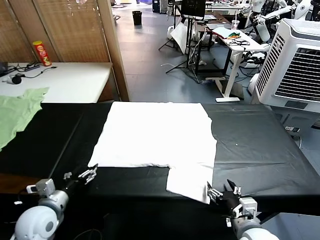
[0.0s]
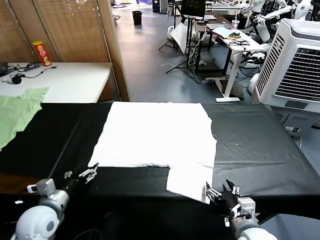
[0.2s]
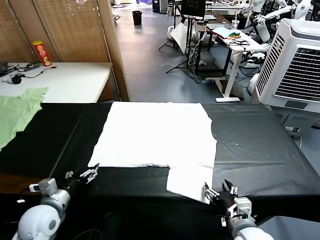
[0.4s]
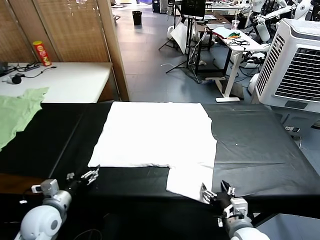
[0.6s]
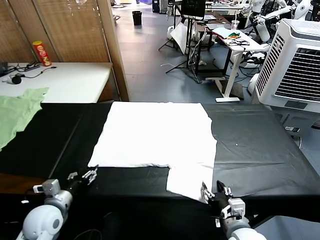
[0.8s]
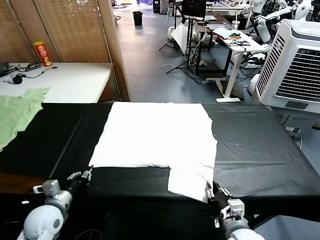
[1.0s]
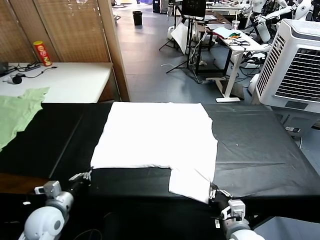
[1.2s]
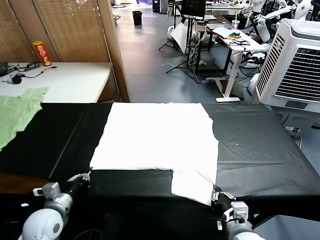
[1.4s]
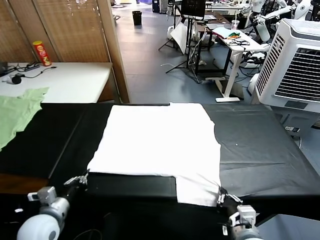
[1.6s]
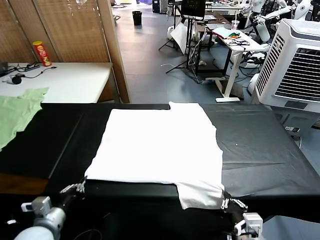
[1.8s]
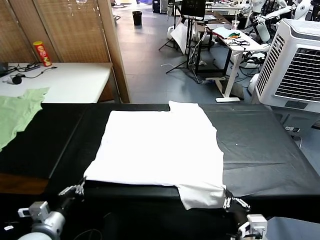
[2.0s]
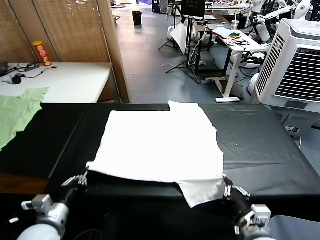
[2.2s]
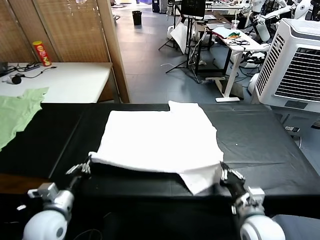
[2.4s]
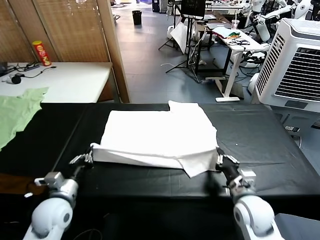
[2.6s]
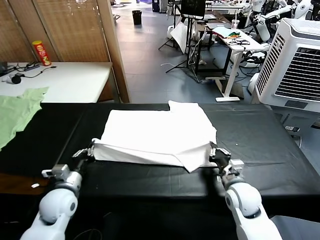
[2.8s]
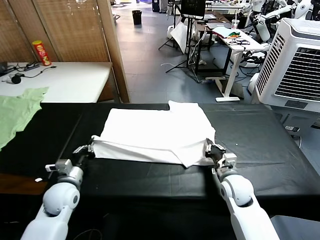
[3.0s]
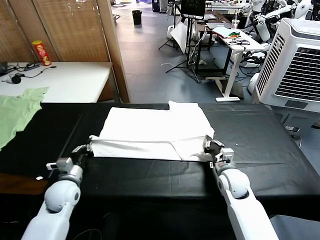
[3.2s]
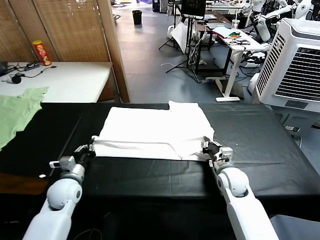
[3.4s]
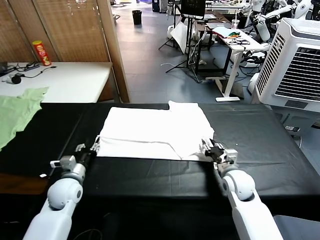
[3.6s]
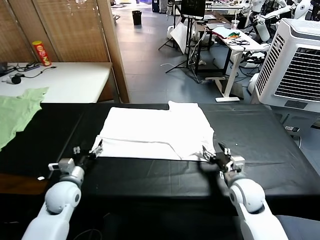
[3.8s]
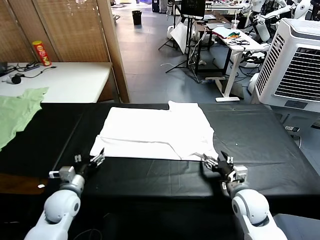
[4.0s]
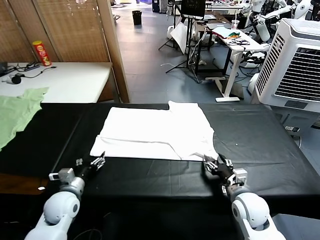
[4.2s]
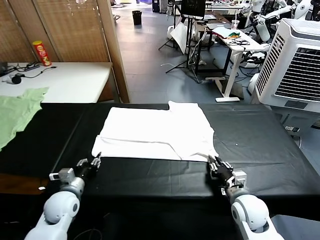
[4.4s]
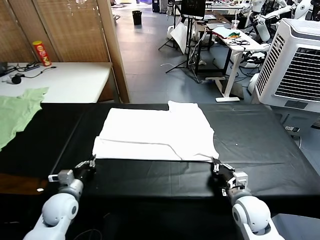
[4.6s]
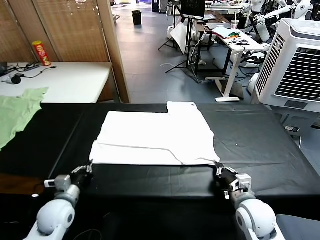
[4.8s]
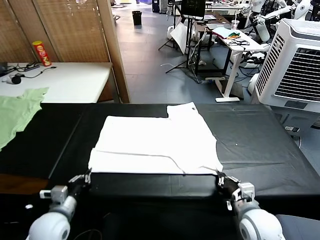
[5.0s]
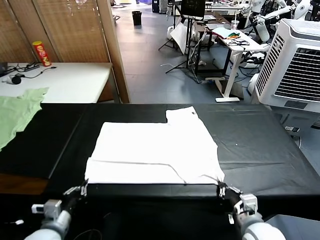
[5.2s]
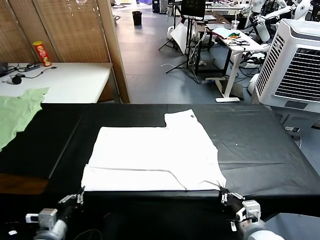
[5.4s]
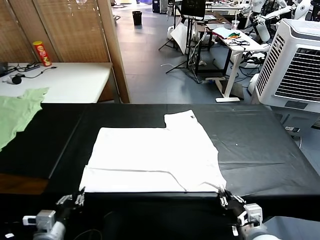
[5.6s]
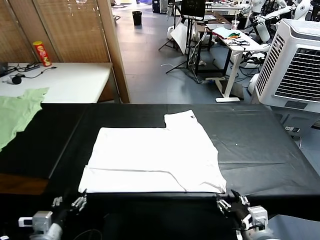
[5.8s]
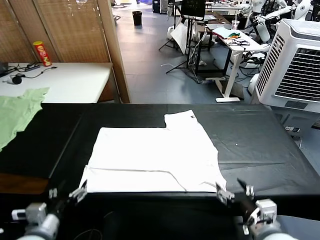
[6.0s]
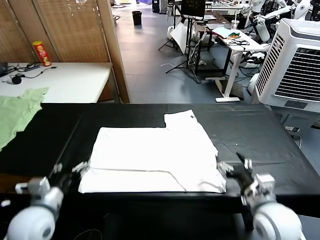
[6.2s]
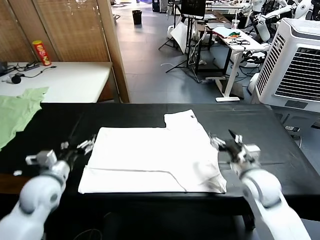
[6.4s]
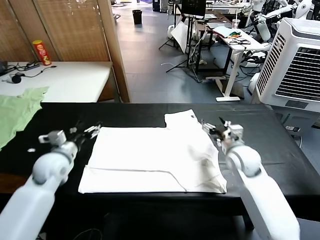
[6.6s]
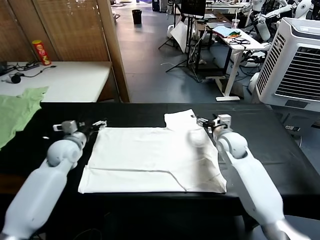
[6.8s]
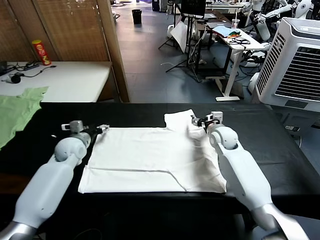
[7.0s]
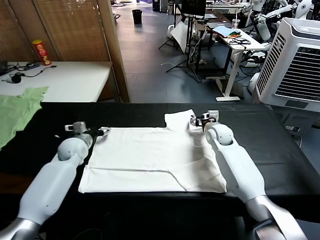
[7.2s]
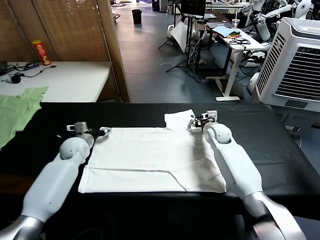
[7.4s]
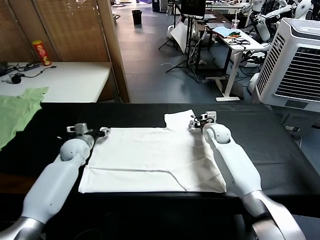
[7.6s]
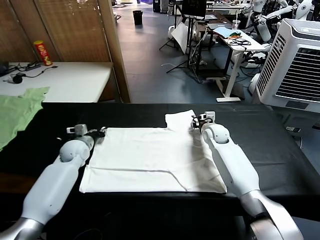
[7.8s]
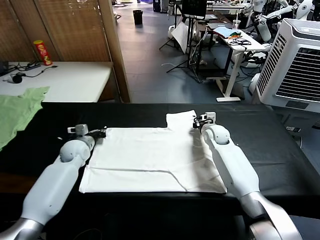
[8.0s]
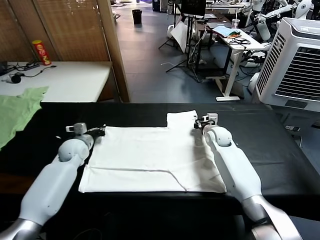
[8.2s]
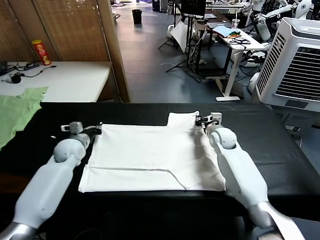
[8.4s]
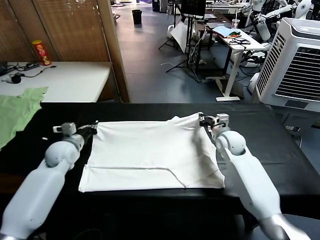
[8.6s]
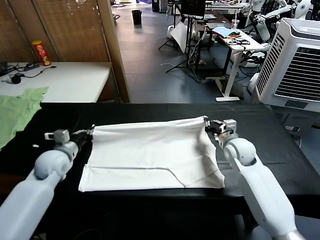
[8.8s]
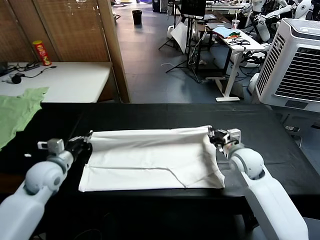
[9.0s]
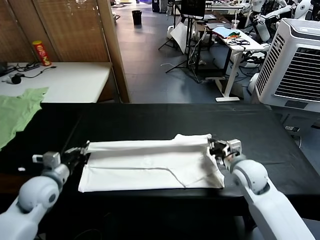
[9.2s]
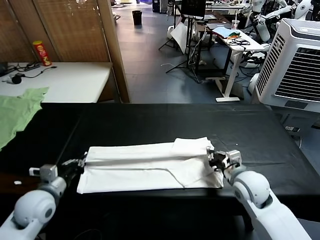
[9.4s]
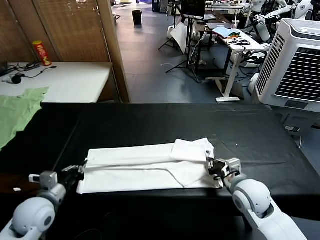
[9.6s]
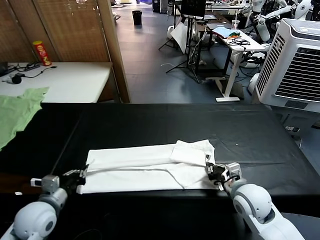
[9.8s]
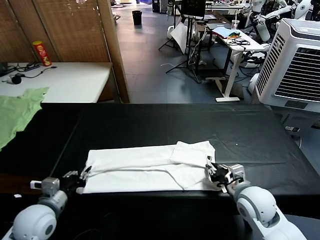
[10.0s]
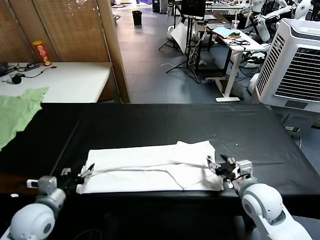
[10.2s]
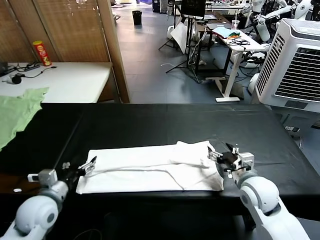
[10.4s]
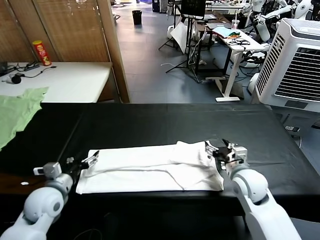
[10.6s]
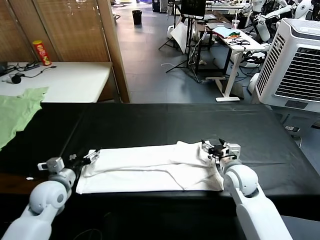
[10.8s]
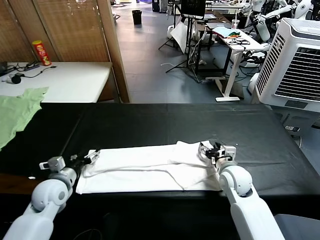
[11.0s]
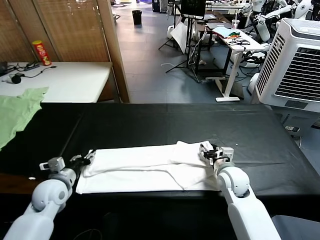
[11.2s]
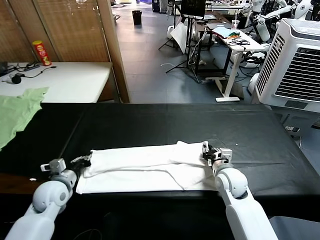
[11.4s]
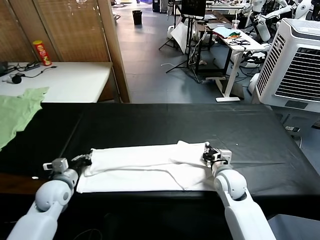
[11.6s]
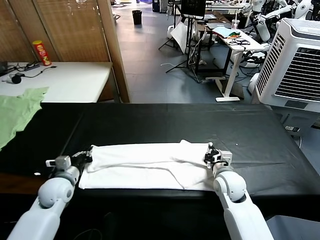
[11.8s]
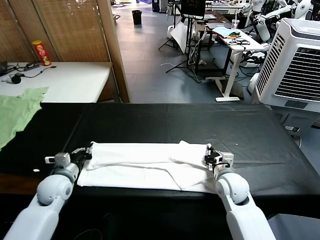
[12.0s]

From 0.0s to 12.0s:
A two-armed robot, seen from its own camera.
Task of the whole recording: fold and organize the clothes.
Step, from 0.0s to 1.4s: use both grippers simultaneously to clamp the lower edge of the clothing fabric.
Step, from 1.6s to 3.6s: use both grippers to drag the lower edge of the fabric forward and fold it over the upper edge.
Step, from 4.0s to 5.8s: Drag the clothes downward with both gripper.
Step, from 6.0s to 7.8s: use both grippers simultaneously to clamp the upper edge of the clothing fabric.
Step, from 8.0s to 10.2s: use both grippers to drag the upper edge of the fabric backward and fold it over the lower edge.
From 1.6s to 3.0s: The right gripper moves forward, approximately 25 cm. Meanwhile the left gripper goes about 10 cm forward.
From 3.0s to 4.4s: The right gripper travels backward by some 10 cm, and opens and closes again; the left gripper opens, then closes again.
From 4.4s to 6.0s: The left gripper shifts roughly 15 cm backward and upward, and opens up, while the right gripper heads upward and backward, covering about 15 cm, and opens up.
From 6.0s to 7.6s: The grippers both shift forward by about 35 cm. The right gripper closes.
From 7.6s to 9.0s: The left gripper travels backward and upward by approximately 15 cm, and closes up; the right gripper heads backward, covering roughly 20 cm, and closes up.
From 9.0s to 10.4s: Both grippers move backward, approximately 5 cm. The right gripper opens. Meanwhile the left gripper opens.
From 10.4s to 12.0s: The left gripper heads forward, covering about 10 cm, and closes; the right gripper heads downward, covering some 5 cm, and closes its fingers.

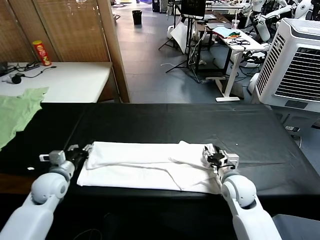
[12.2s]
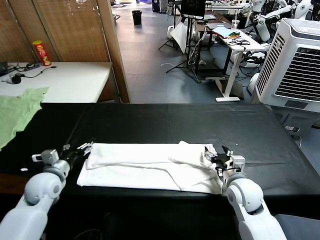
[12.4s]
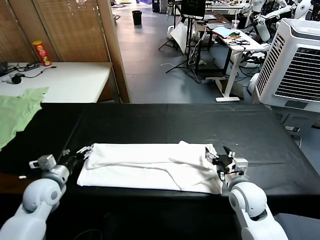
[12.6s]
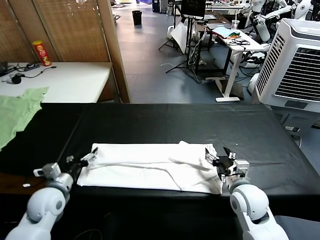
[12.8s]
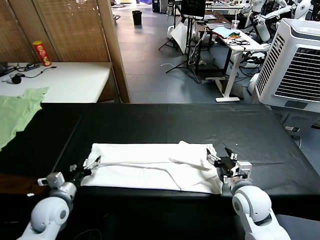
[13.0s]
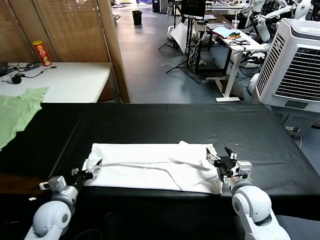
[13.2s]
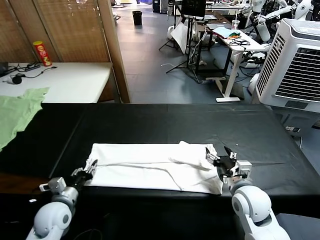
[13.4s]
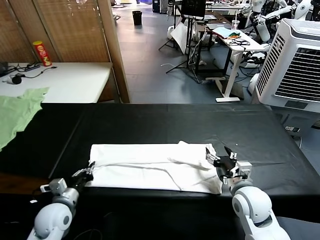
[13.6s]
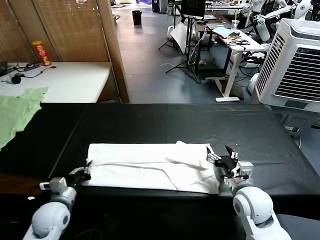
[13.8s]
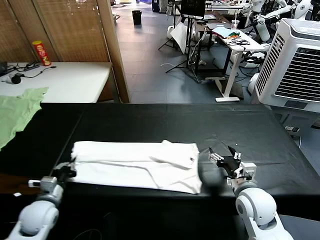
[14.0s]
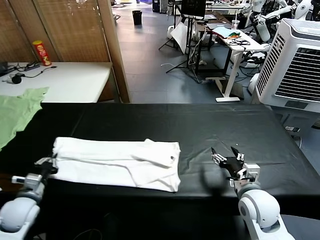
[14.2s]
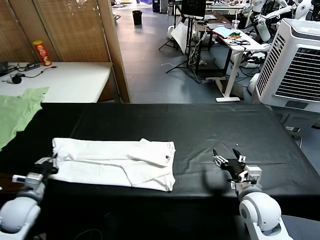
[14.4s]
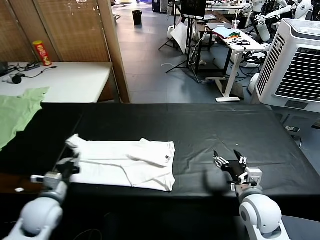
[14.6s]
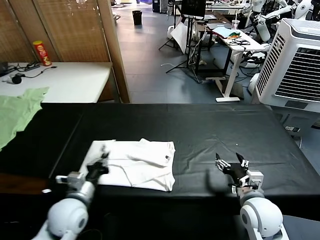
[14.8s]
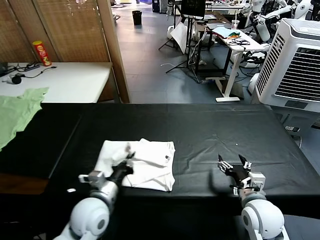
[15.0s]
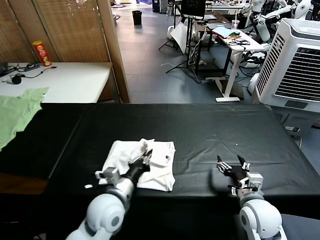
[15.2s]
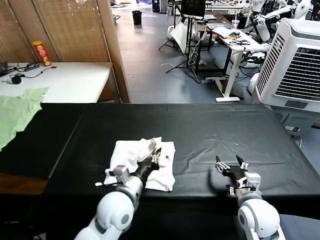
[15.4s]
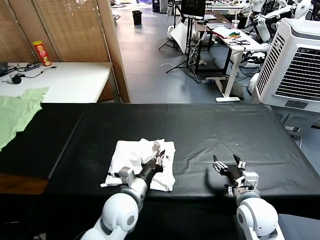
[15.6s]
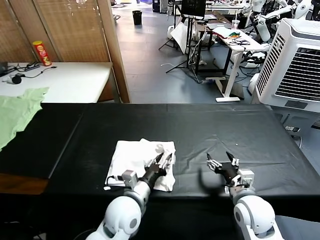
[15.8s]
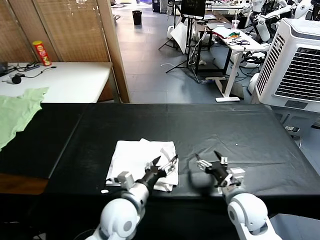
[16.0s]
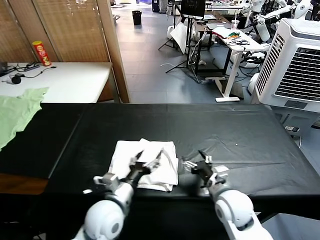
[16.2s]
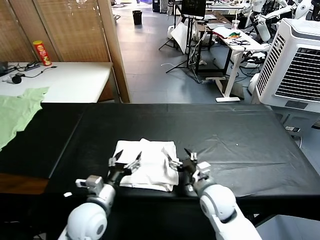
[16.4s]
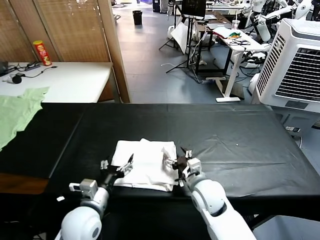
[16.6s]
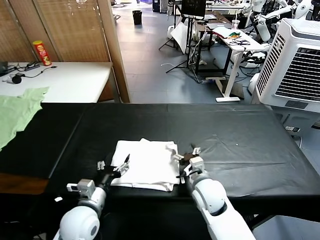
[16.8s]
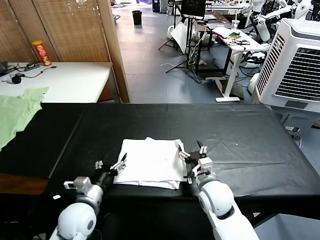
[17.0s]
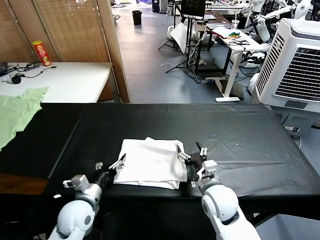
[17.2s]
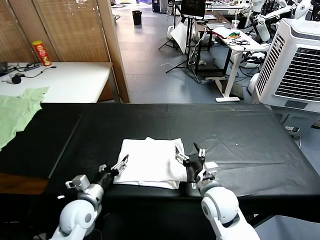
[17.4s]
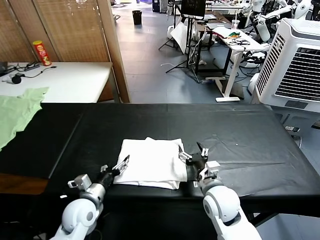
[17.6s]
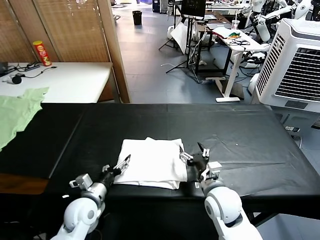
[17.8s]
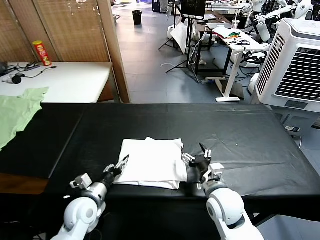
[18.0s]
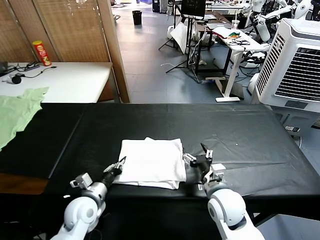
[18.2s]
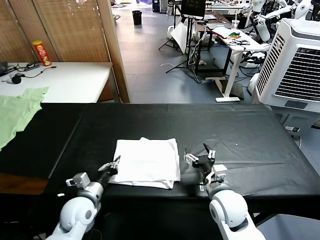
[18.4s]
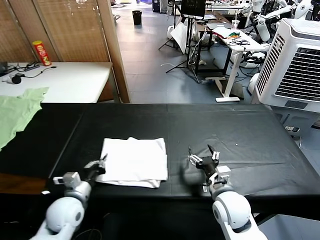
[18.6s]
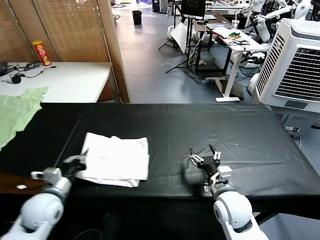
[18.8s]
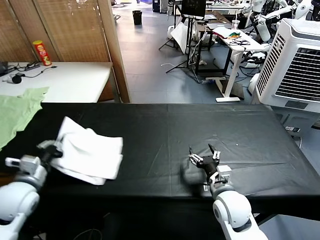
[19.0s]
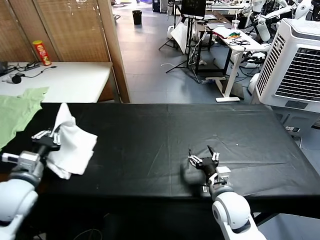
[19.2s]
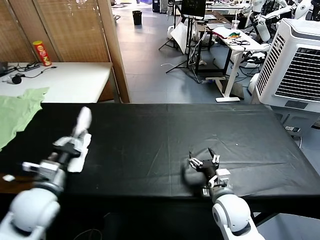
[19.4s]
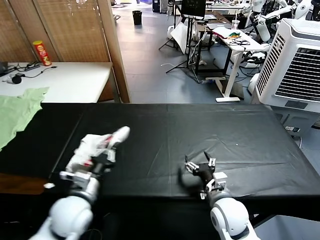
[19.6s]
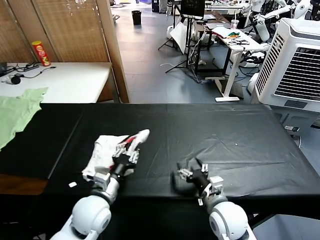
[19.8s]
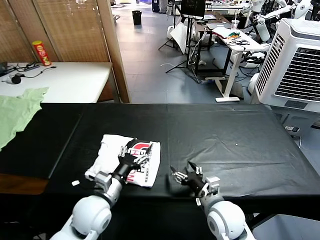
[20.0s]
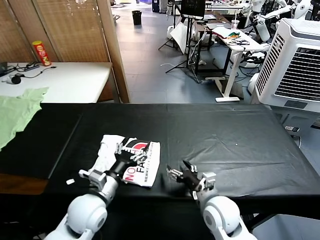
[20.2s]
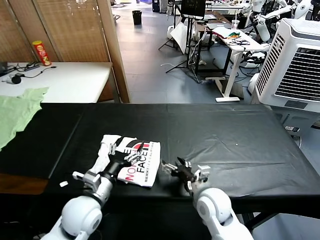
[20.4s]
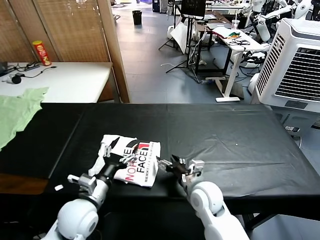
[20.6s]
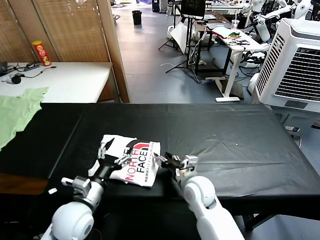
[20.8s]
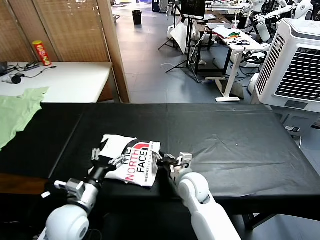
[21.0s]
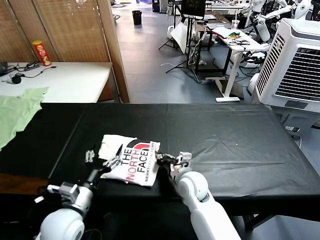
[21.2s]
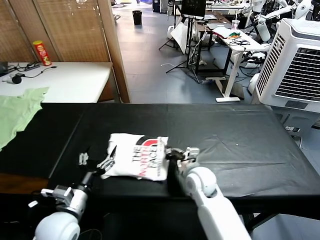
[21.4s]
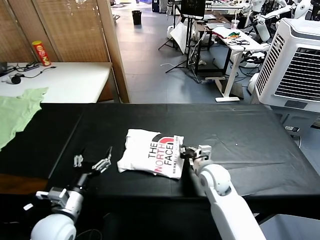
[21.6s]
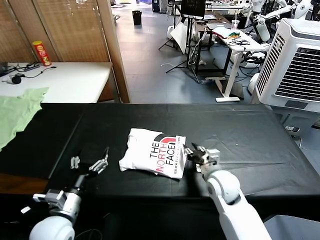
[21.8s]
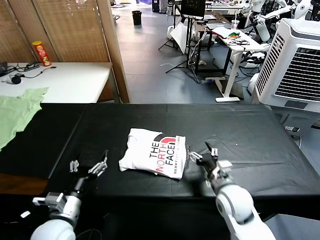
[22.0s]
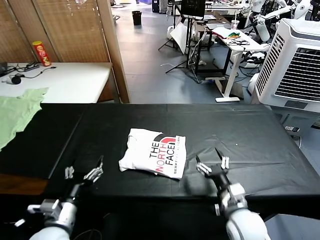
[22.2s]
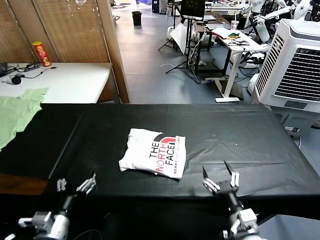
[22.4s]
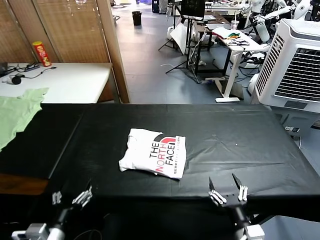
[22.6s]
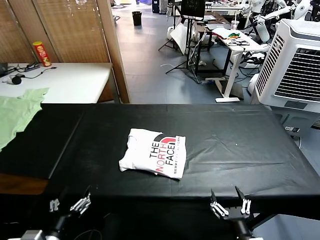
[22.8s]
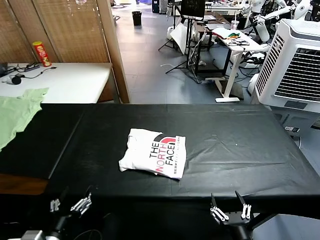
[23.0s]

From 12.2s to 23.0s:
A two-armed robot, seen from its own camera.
Task of the whole recording: fold and organize the clothes.
Step, from 13.8s to 15.8s: use the left gripper to drag the left edge of the fabric to the left and folds it over the right edge.
Step, from 16.0s to 19.8s: Flip the folded clothes over with left gripper.
Step, from 20.0s to 21.6s: Drag the clothes to the center of the table.
From 12.2s to 13.8s: The right gripper is displaced backward by roughly 5 cm. The left gripper travels backward by approximately 10 cm, and closes its fingers.
From 13.8s to 15.2s: The left gripper heads to the right, covering approximately 20 cm.
From 15.2s to 16.8s: The right gripper moves to the left and forward, approximately 15 cm; the left gripper is displaced to the left by approximately 5 cm, and opens its fingers.
From 16.8s to 18.4s: The left gripper changes place by about 5 cm, and closes up, while the right gripper shifts by about 5 cm.
From 18.4s to 20.0s: The left gripper shifts approximately 10 cm to the right and upward, and opens.
From 20.0s to 21.4s: The right gripper heads forward and to the left, covering about 15 cm, and closes, while the left gripper heads to the left, covering some 5 cm.
From 21.4s to 23.0s: The left gripper travels backward by approximately 10 cm. The right gripper heads backward, covering about 30 cm, and opens its fingers.
